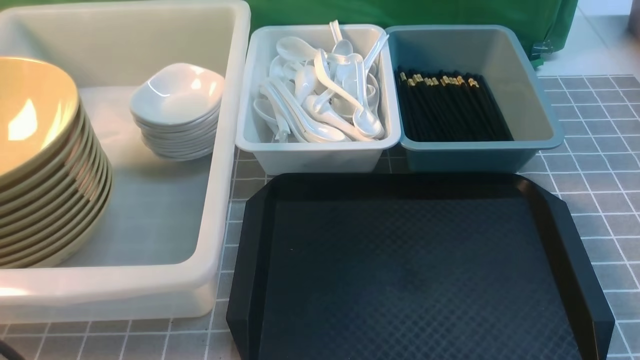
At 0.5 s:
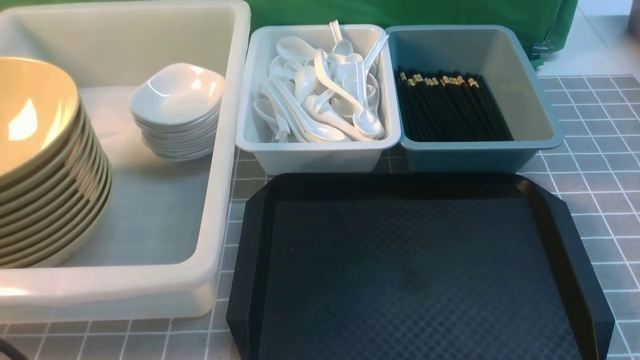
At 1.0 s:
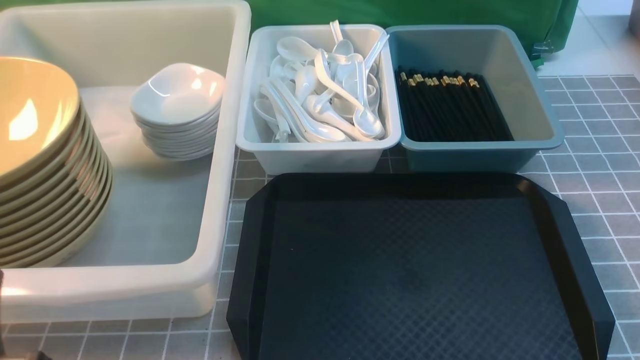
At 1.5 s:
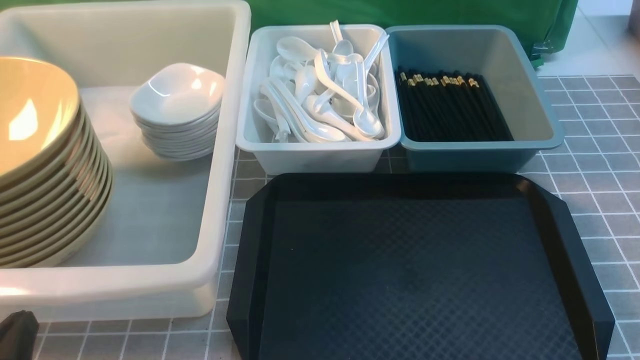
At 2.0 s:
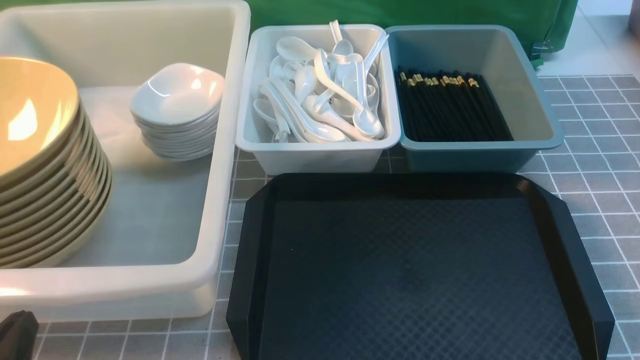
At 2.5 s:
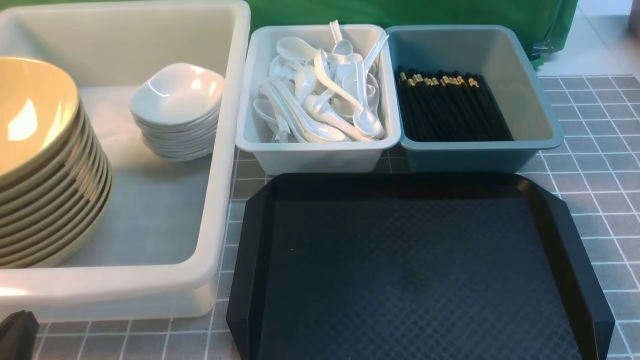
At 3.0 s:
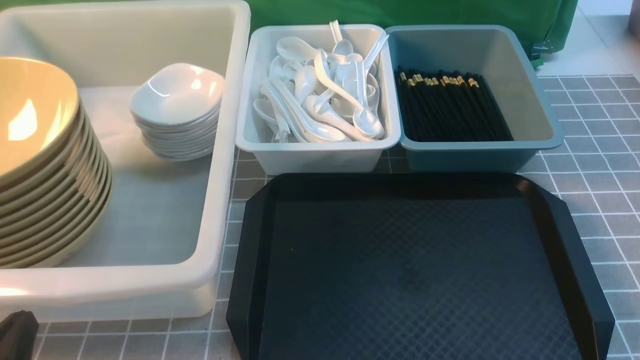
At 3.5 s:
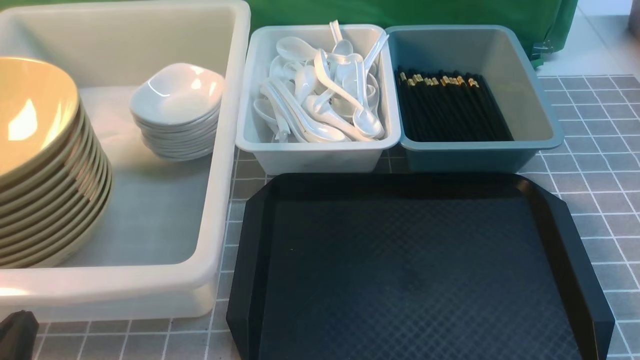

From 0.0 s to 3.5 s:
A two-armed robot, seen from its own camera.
Task of the whole recording: on grey table put chopsticks spoon bowls plates into blue grey white boxes.
From 2.0 s to 3.5 s: Both grippers stay put.

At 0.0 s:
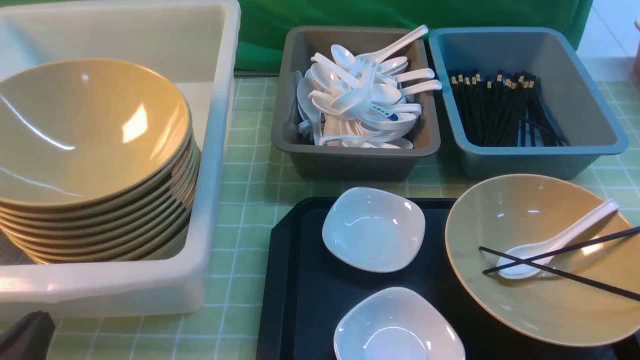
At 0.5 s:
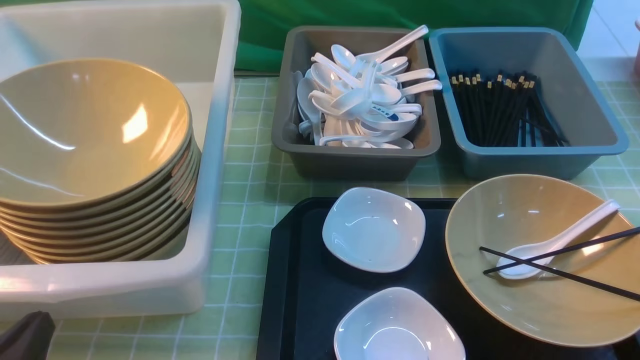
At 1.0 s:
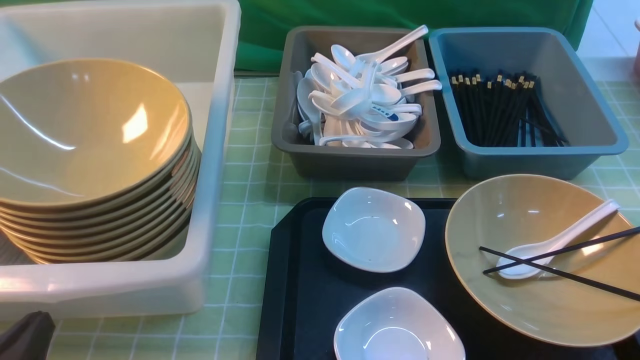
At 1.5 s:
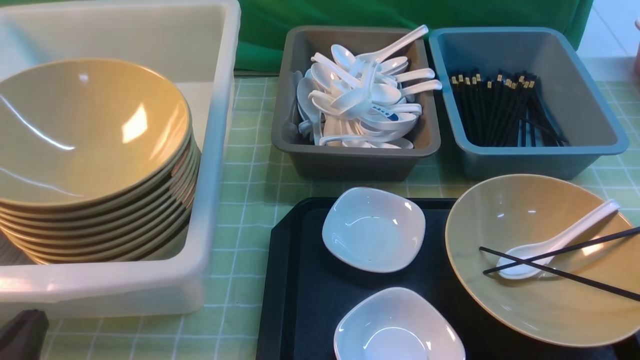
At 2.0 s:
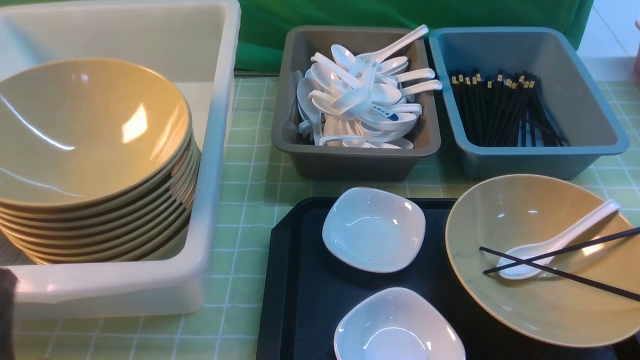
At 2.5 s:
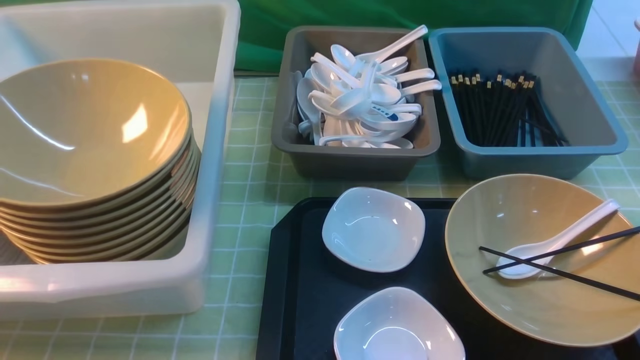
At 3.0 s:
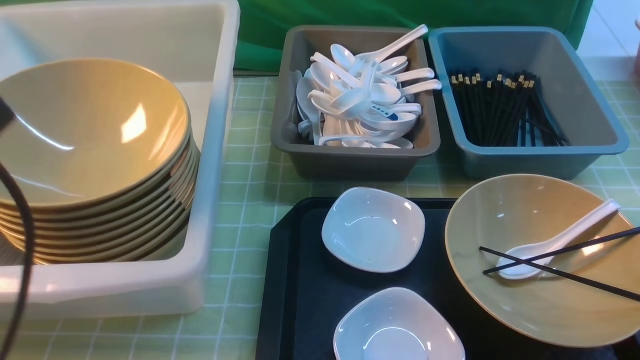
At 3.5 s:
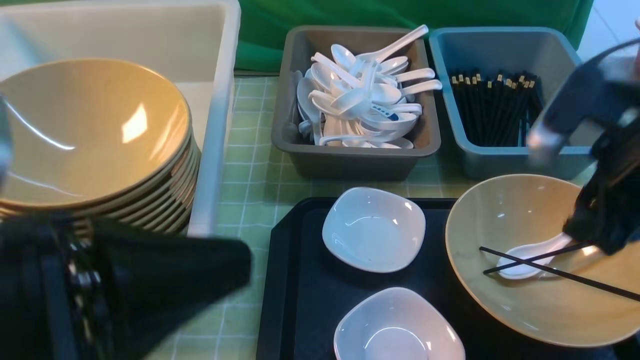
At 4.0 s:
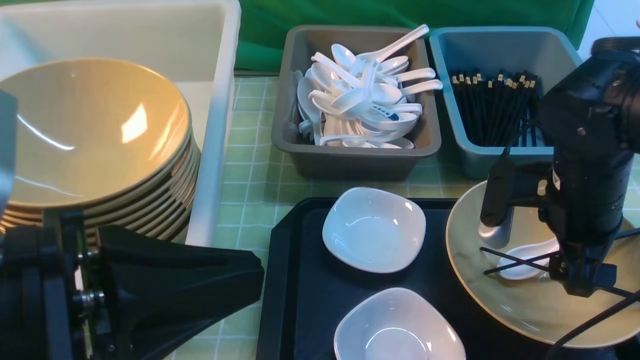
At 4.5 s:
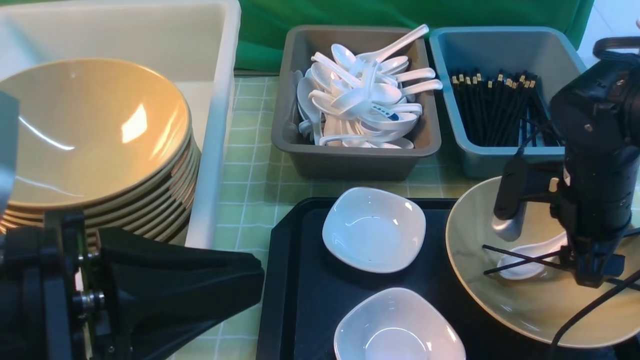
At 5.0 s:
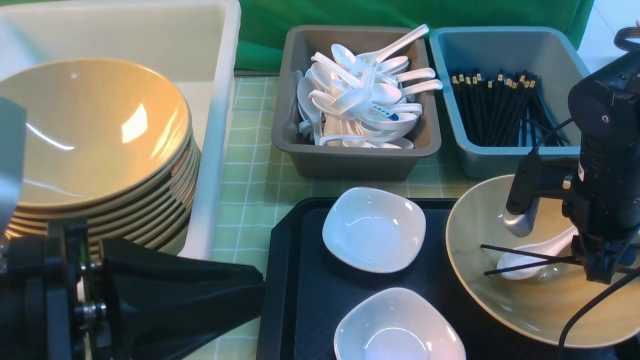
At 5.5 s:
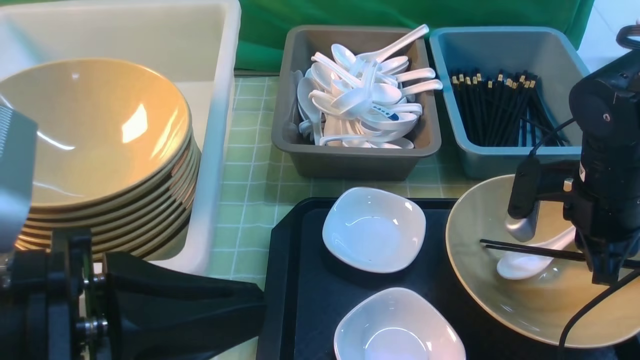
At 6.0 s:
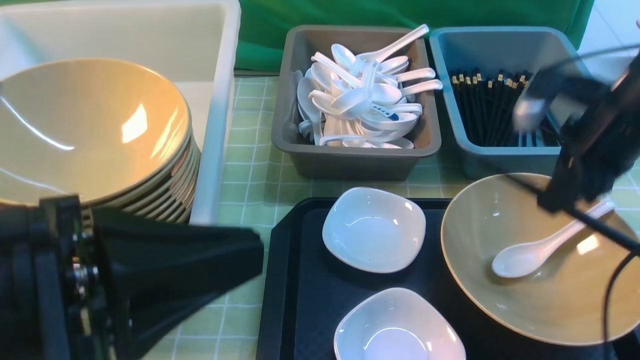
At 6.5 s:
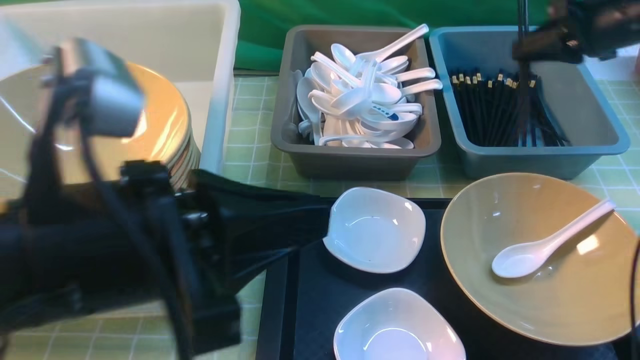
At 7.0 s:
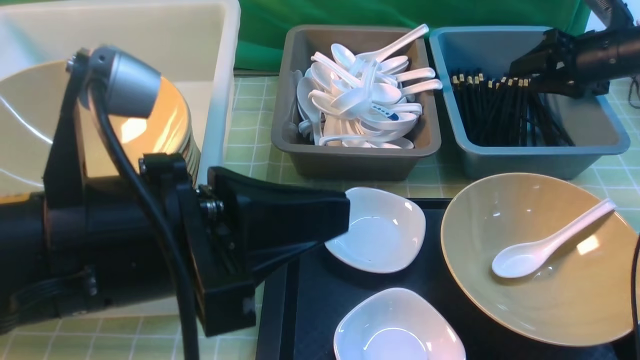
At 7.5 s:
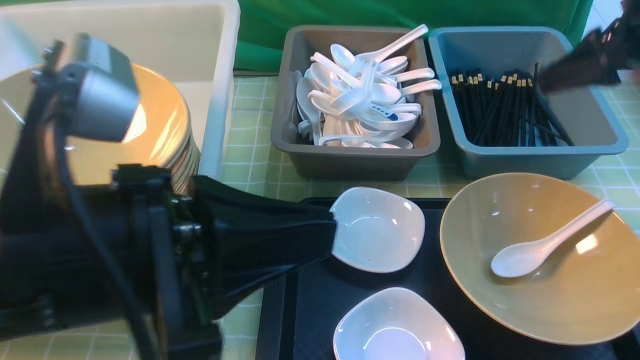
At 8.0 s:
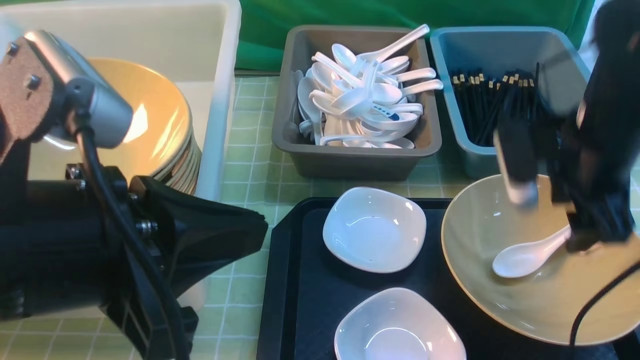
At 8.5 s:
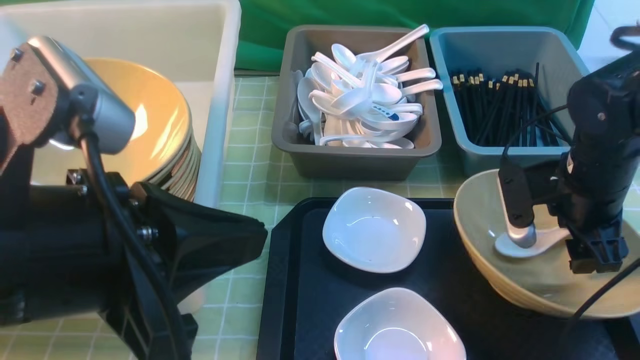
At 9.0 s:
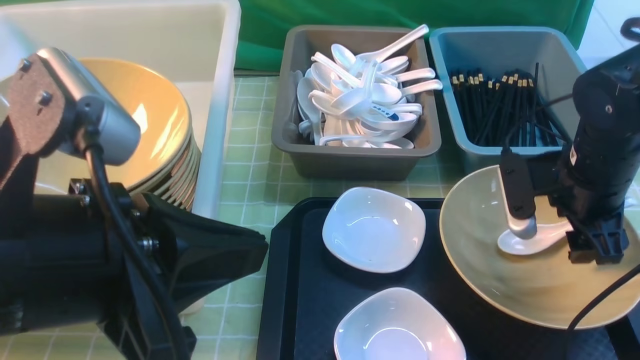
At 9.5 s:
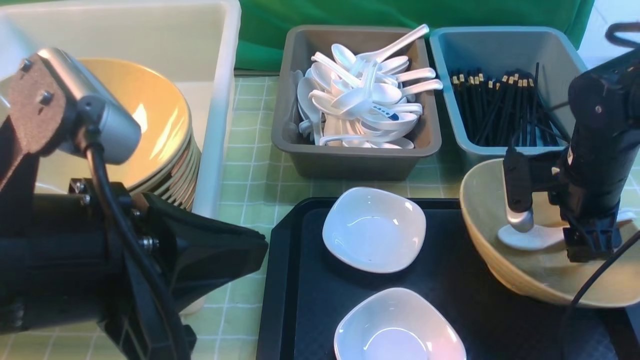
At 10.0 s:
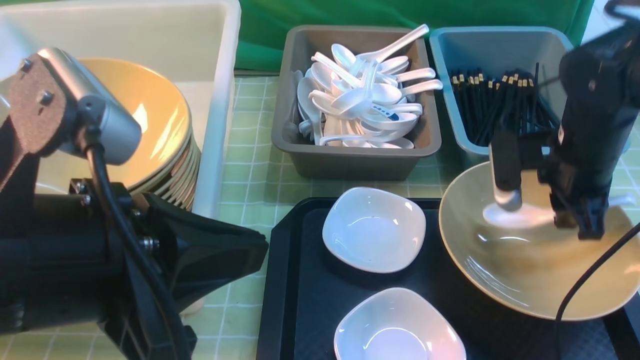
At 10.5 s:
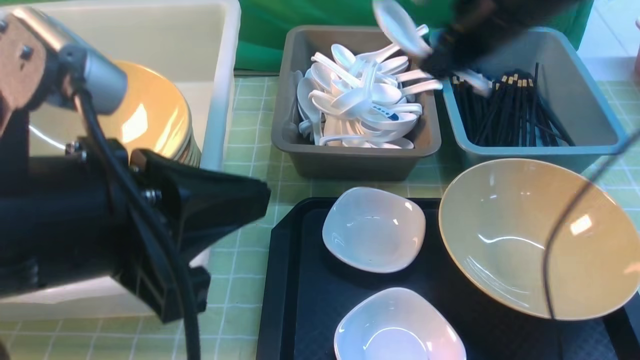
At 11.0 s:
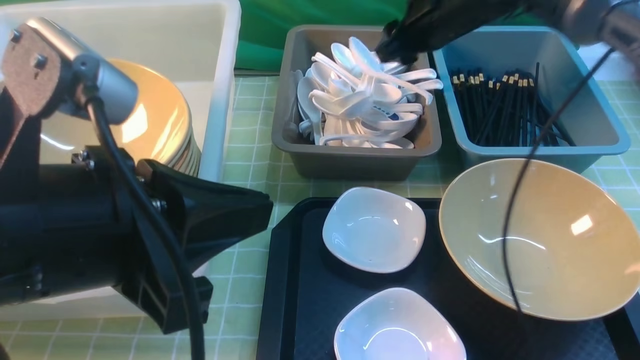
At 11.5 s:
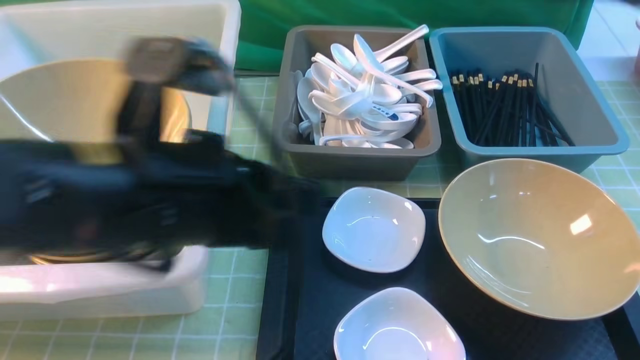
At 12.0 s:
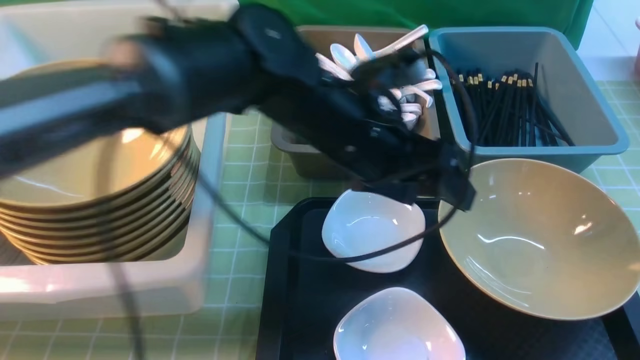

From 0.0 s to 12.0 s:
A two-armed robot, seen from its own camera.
Task of the whole recording: on green table put chopsticks spoon bowls plates into blue grey white boxes.
Step, from 0.0 s to 5.5 s: use the right arm to grab the chopsticks.
Step, from 6.0 s to 7.5 s: use the right arm to put the chopsticks into the small storage box on the right.
Step, from 8.0 s to 10.0 s: use the right arm to grab the soup spoon in the middle.
Step, from 10.5 s to 11.0 s: use the right arm to put the soup spoon into the small storage box in the middle.
From 2.0 s to 4.0 s: The left gripper heads upward and to the right, covering some 20 cm; the right gripper goes approximately 25 cm forward and to the left, and opens up.
From 4.0 s to 6.0 s: The right gripper heads to the right and forward, covering roughly 10 cm, and closes.
From 6.0 s to 8.0 s: The right gripper travels forward and back again, roughly 15 cm each way, and opens up.
From 8.0 s to 10.0 s: The right gripper closes.
From 10.0 s to 12.0 s: The left gripper travels forward, to the right and downward by about 25 cm, and opens up; the right gripper heads backward and upward, covering some 30 cm, and opens, then closes again.

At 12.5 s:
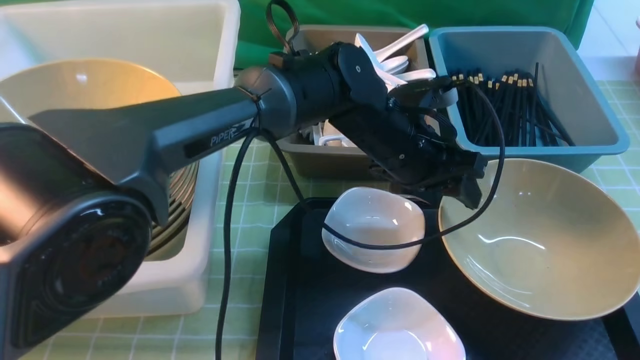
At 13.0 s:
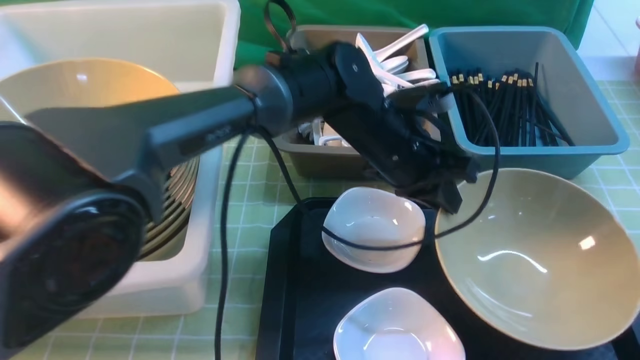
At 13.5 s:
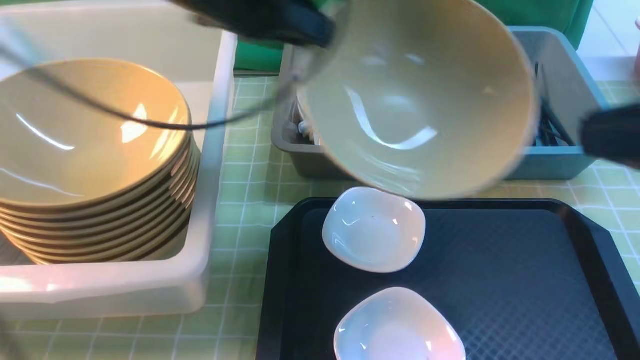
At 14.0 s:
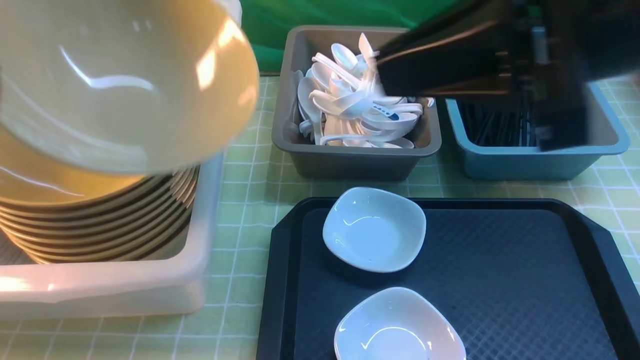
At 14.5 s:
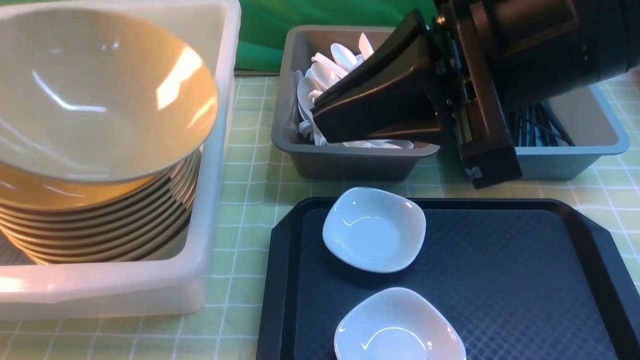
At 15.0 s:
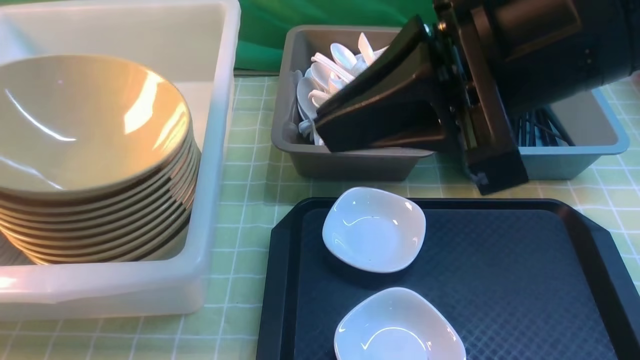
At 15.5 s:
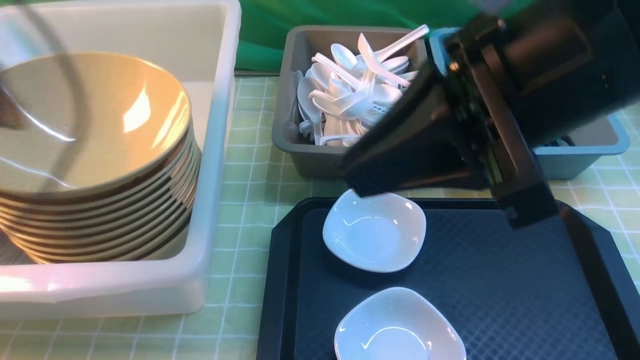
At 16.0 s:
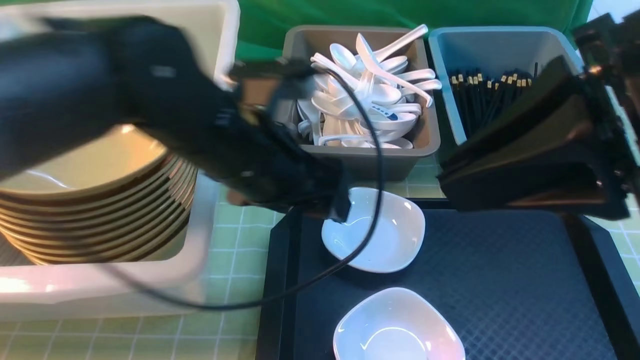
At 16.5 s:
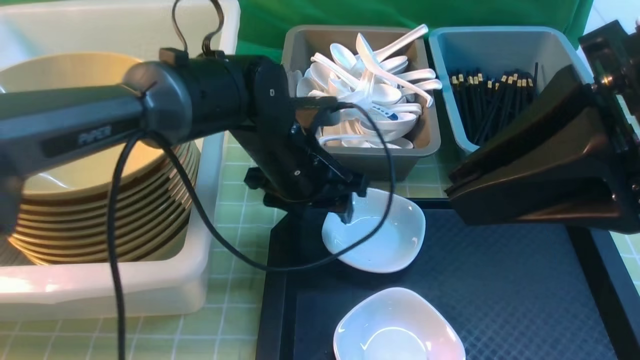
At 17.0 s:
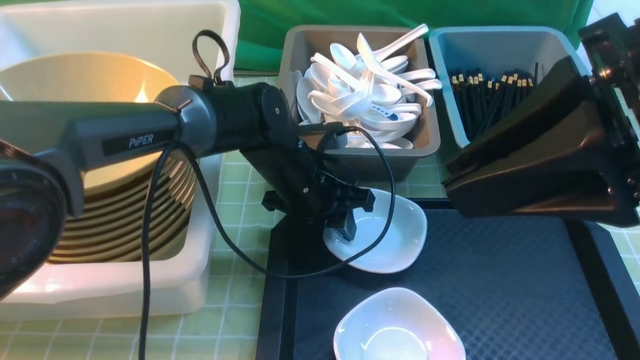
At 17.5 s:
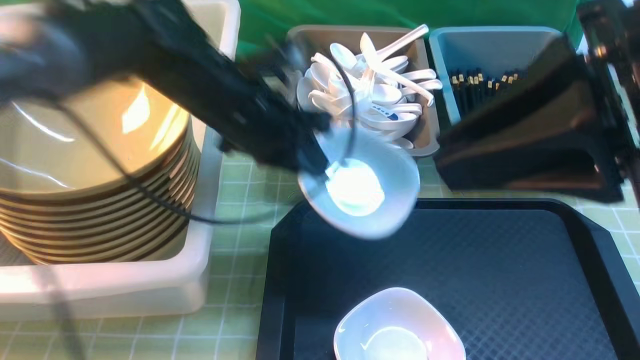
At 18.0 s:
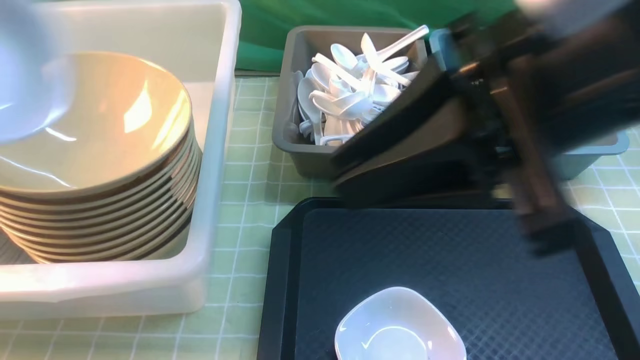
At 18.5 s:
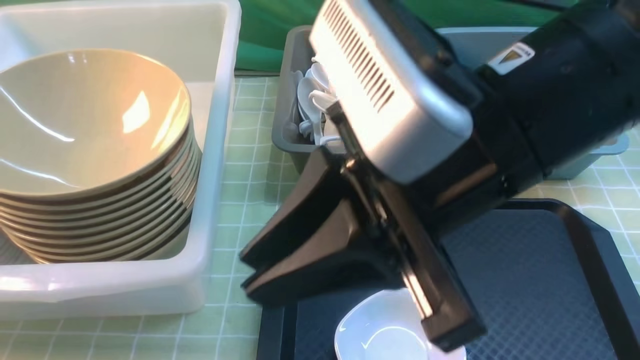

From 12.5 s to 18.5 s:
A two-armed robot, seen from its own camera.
Task of the whole recording: on green table put chopsticks spoon bowls plates into blue grey white boxes.
Step, from 13.5 s to 15.5 s: use the left arm to put the noodle bowl into the large storage box on the left.
Step, from 16.5 s to 17.5 s: use the left arm to grab the plate.
From 12.5 s to 14.5 s: The right gripper heads to the left and forward, covering some 20 cm. The left gripper is displaced to the left, upward and backward by some 50 cm, and closes its fingers.
From 14.5 s to 16.5 s: The right gripper heads backward, covering some 5 cm. Meanwhile the left gripper heads to the right, downward and forward, covering roughly 35 cm, and opens.
From 16.5 s to 18.5 s: The left gripper moves to the left, backward and upward, approximately 40 cm, and closes; the right gripper is displaced to the left and downward by roughly 10 cm.
